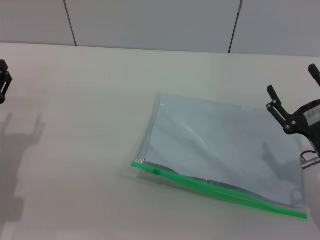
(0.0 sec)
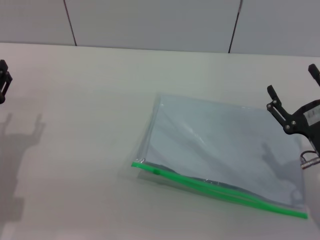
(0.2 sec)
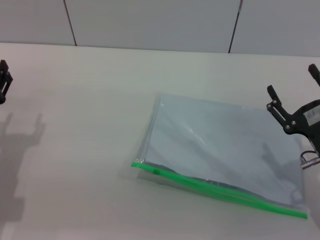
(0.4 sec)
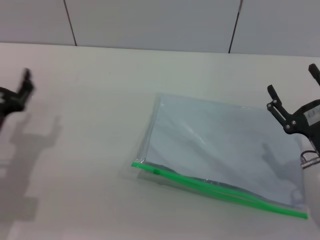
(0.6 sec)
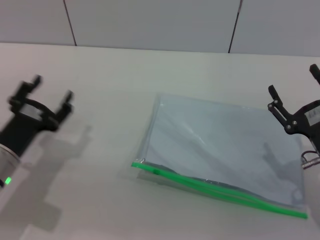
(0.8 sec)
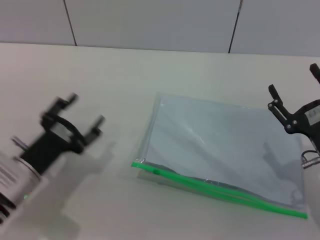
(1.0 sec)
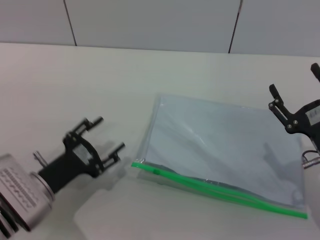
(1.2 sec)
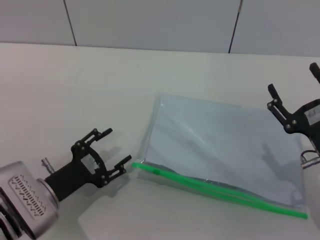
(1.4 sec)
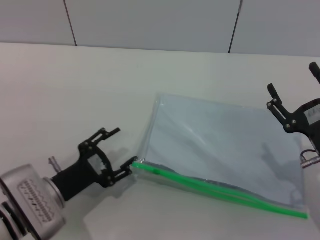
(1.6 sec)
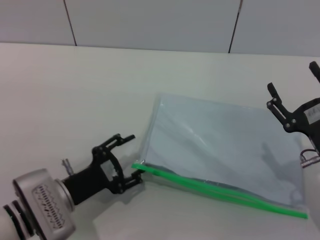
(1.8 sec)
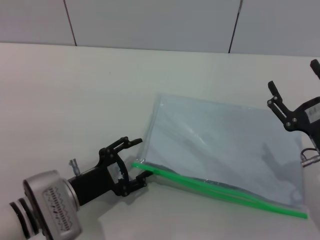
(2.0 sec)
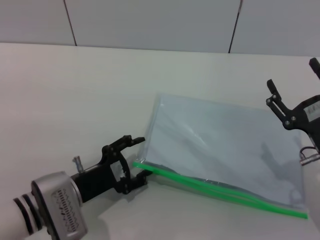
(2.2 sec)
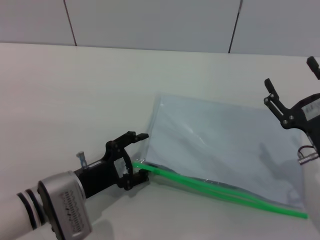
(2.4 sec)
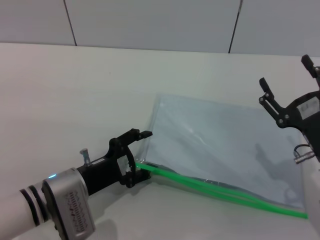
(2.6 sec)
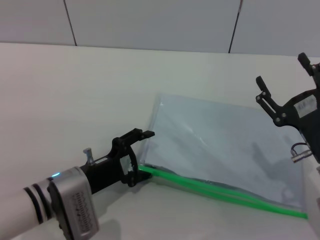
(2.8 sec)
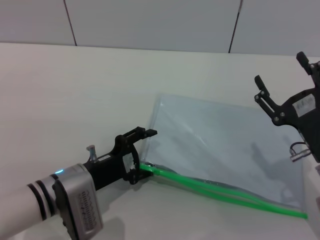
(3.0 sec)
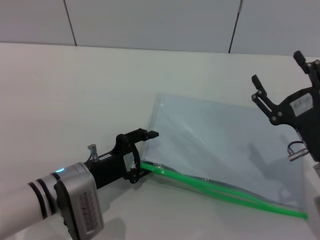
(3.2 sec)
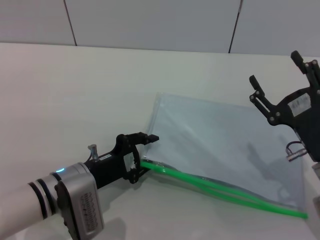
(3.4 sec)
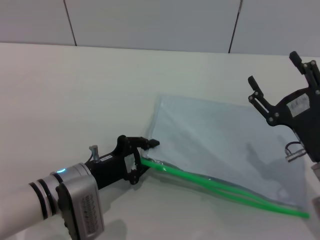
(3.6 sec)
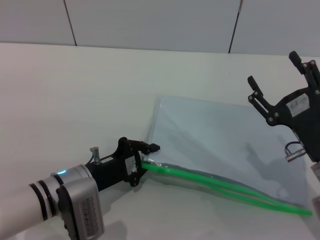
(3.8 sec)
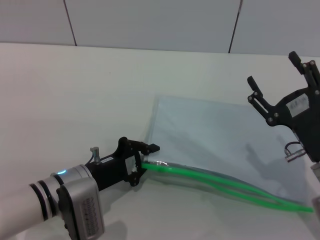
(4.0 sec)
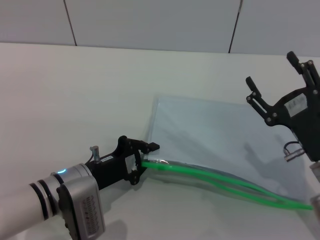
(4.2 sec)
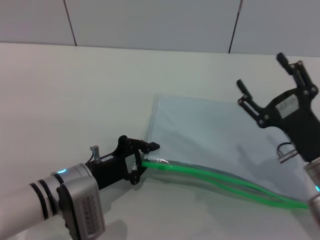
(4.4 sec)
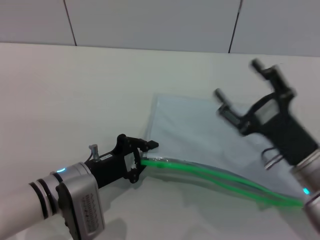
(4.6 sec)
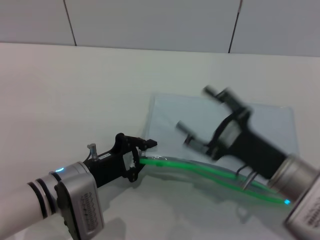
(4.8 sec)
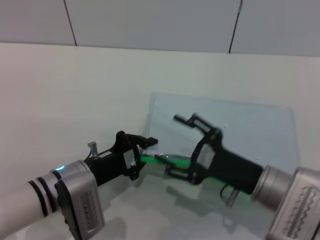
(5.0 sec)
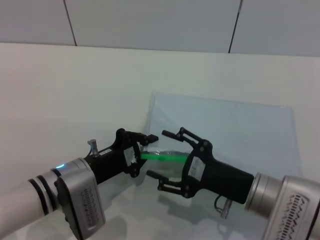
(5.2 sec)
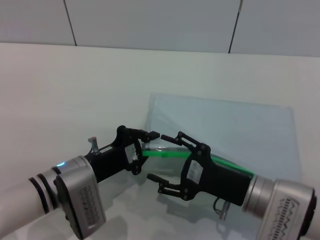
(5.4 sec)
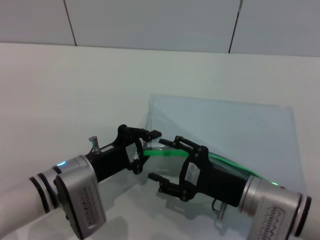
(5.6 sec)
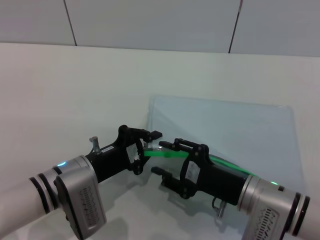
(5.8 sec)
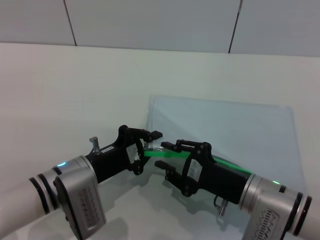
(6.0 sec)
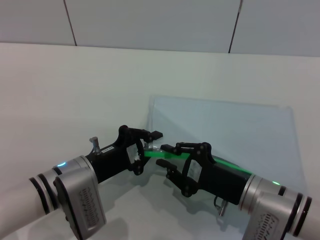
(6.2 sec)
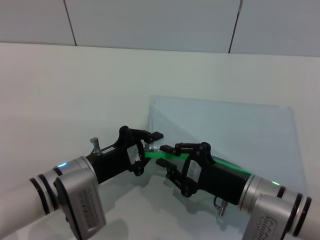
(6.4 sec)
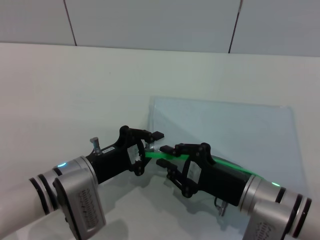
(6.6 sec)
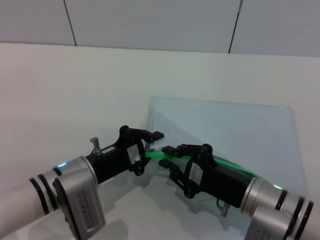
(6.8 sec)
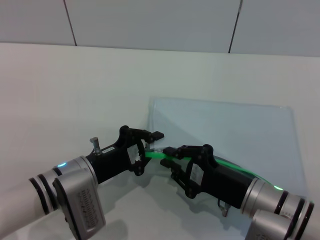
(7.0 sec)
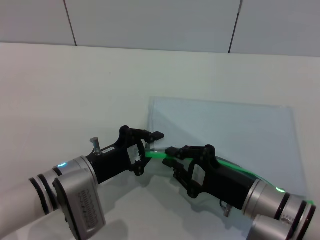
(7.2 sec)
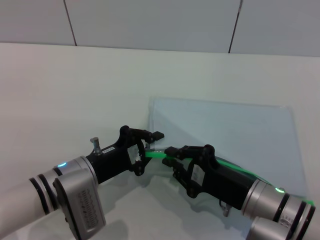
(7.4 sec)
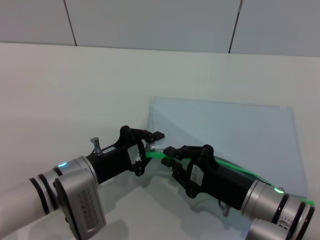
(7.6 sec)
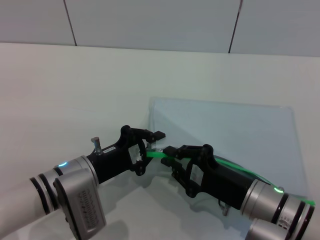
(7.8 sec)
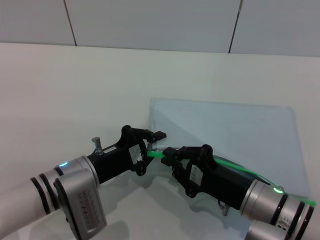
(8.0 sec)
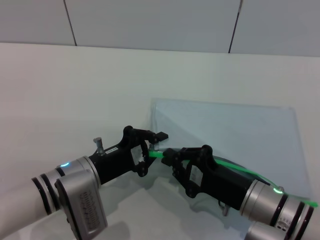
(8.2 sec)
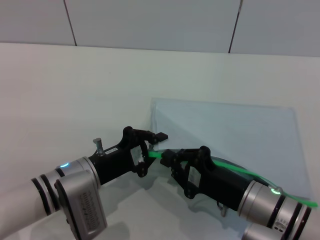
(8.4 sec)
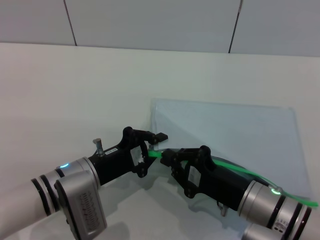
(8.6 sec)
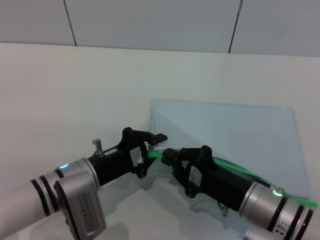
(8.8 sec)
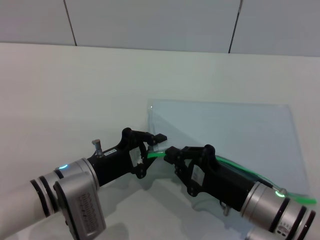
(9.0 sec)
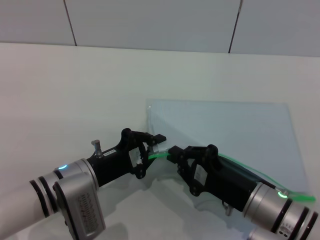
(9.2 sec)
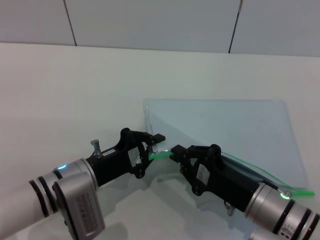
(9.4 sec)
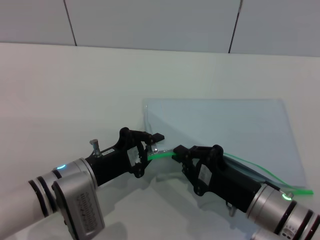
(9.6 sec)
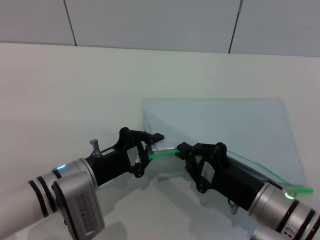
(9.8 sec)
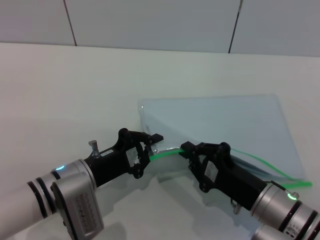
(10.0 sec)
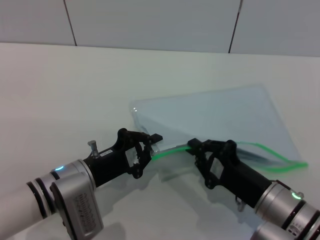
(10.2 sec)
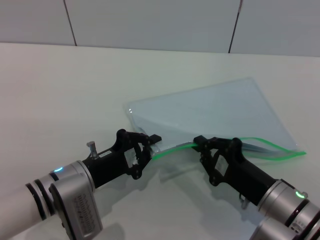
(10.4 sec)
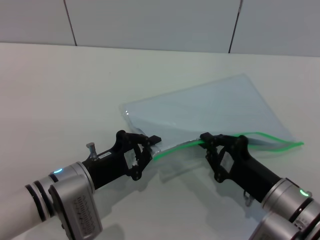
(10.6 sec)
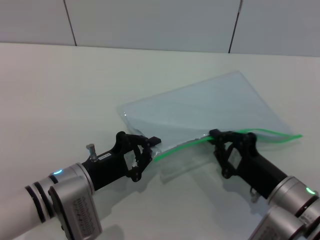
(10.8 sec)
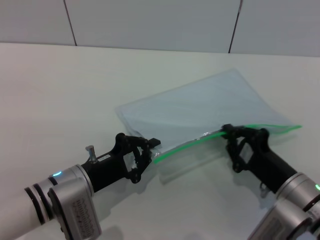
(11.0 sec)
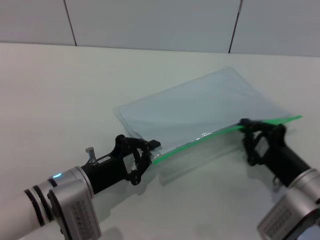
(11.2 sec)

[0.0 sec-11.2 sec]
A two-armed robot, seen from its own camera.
Step, 0.0 sec to 4.6 sec: Pick up the transparent plastic bag with the left gripper.
0.0 sec to 1.6 sec: The left gripper heads to the right, covering approximately 10 cm.
1.6 sec to 3.2 sec: The left gripper shifts by roughly 5 cm.
3.2 sec to 4.8 sec: The left gripper closes.
4.8 sec to 6.4 sec: The right gripper closes its fingers.
6.4 sec to 8.0 sec: The grippers stay close to where they were, moving slightly.
8.0 sec to 9.6 sec: There are only small adjustments of the grippers.
9.6 sec to 11.2 sec: The right gripper heads to the right, covering some 5 cm.

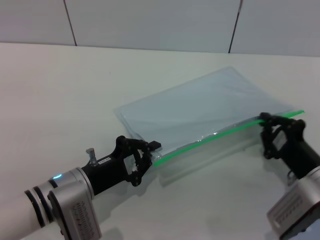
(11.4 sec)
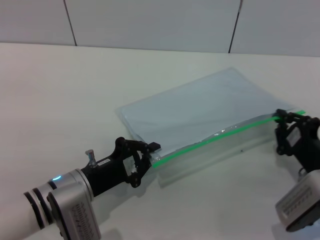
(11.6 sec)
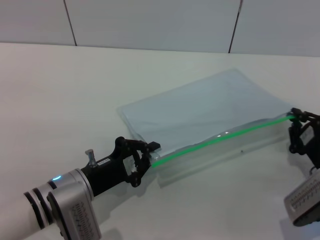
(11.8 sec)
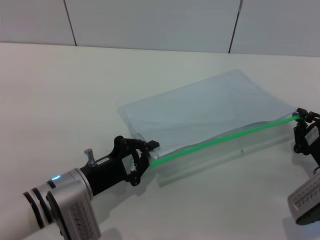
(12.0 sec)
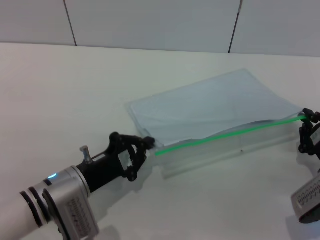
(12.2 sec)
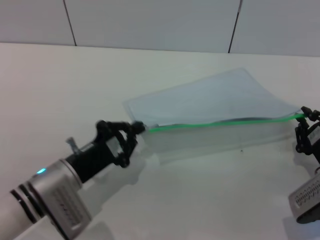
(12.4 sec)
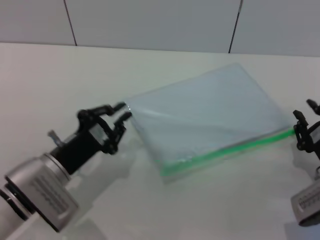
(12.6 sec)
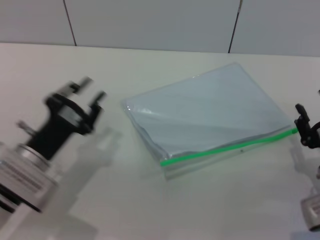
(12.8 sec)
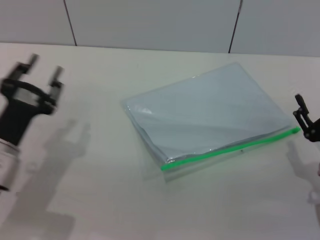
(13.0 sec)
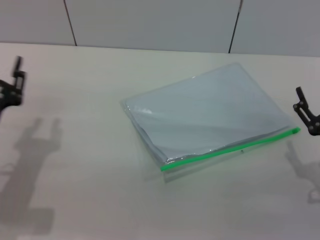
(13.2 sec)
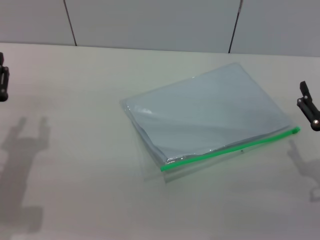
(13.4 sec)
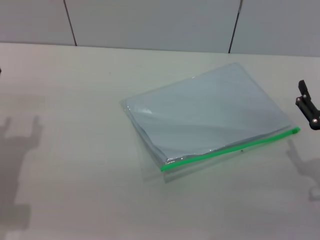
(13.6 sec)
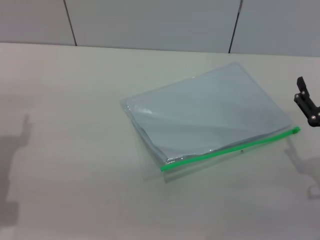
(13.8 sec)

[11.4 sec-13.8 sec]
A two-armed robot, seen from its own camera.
Step, 12.6 sec to 12.8 sec: Place the transparent plastic bag.
12.6 sec to 13.8 sec: The right gripper opens its fingers. The left gripper heads to the left, covering roughly 10 cm, and opens up.
